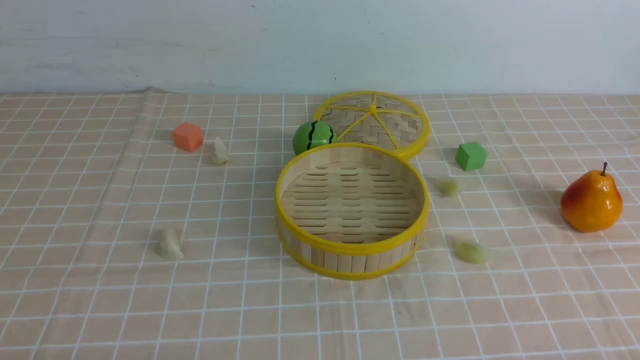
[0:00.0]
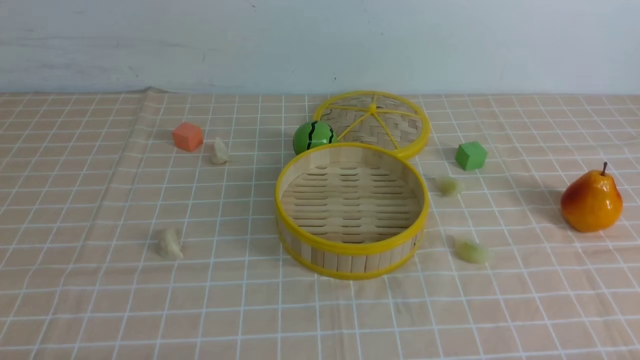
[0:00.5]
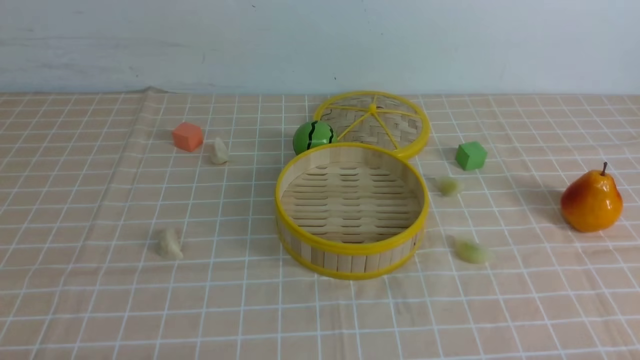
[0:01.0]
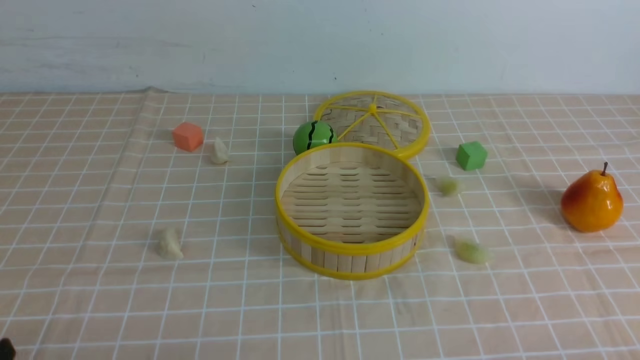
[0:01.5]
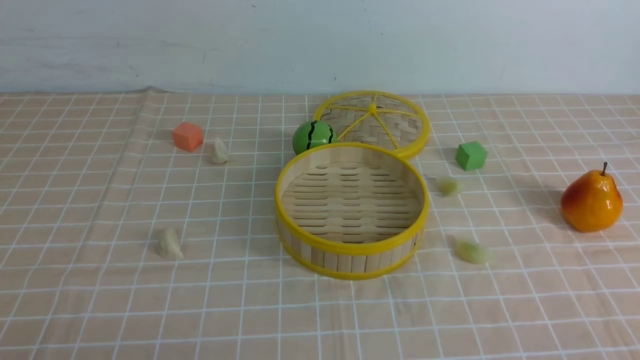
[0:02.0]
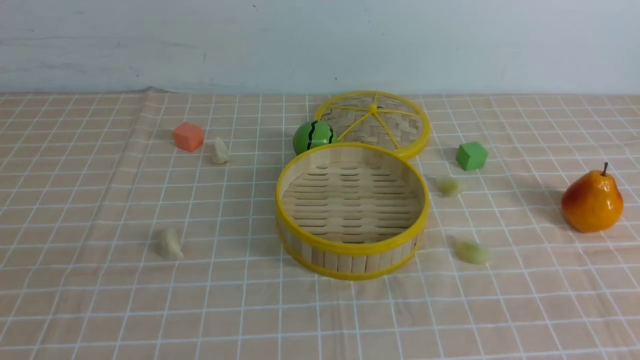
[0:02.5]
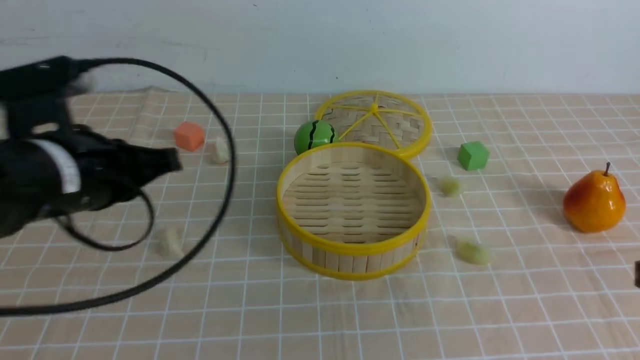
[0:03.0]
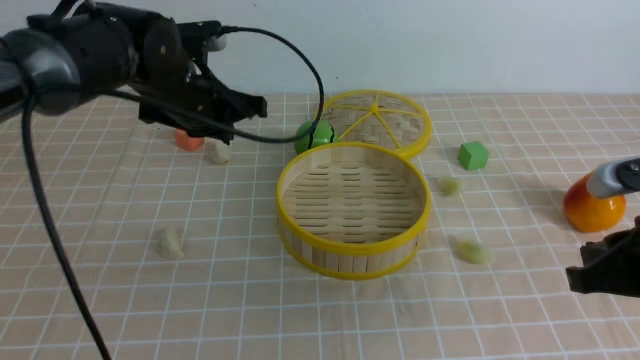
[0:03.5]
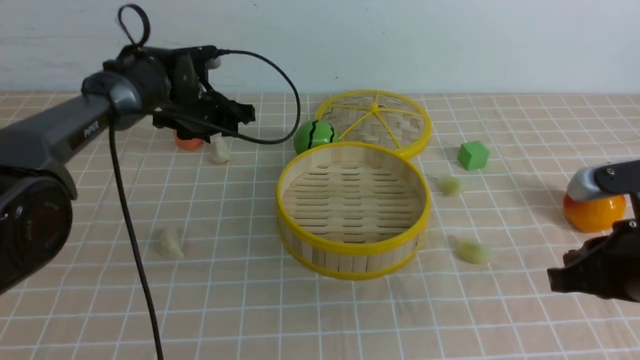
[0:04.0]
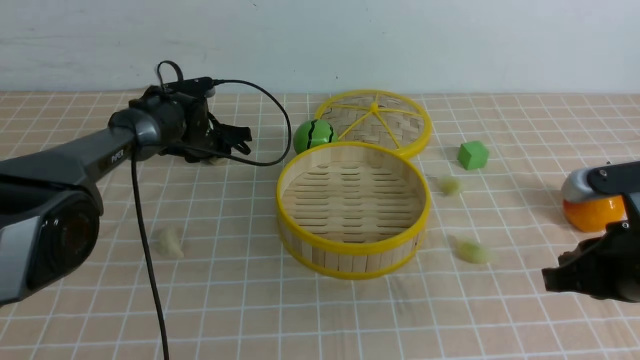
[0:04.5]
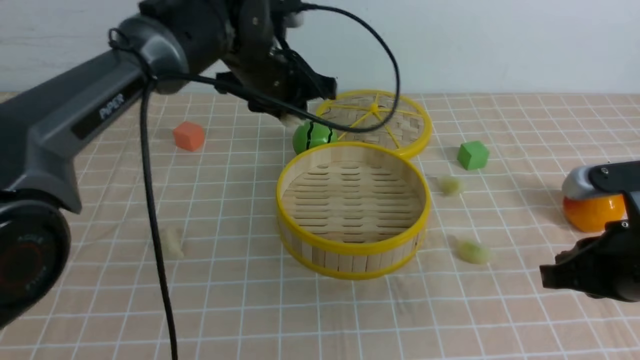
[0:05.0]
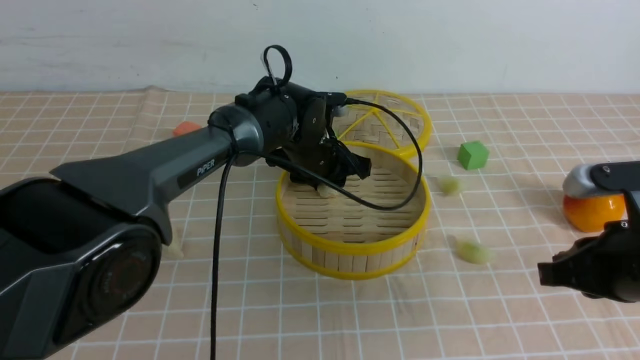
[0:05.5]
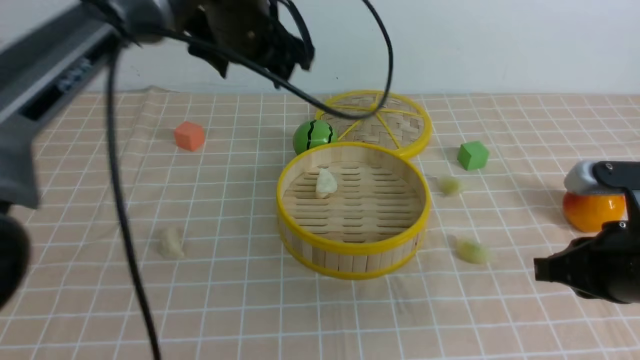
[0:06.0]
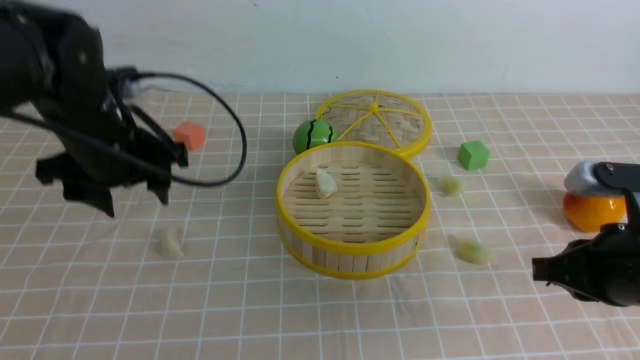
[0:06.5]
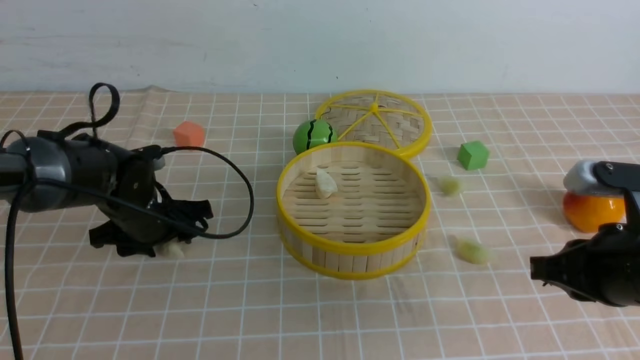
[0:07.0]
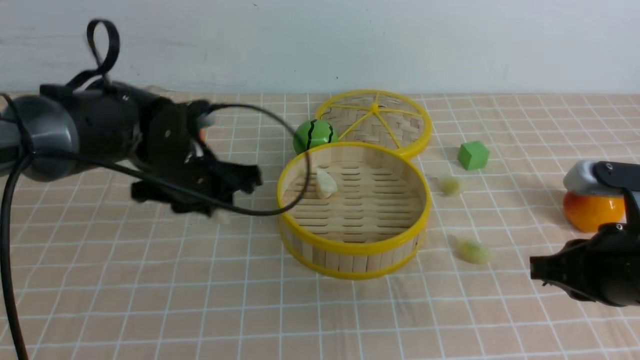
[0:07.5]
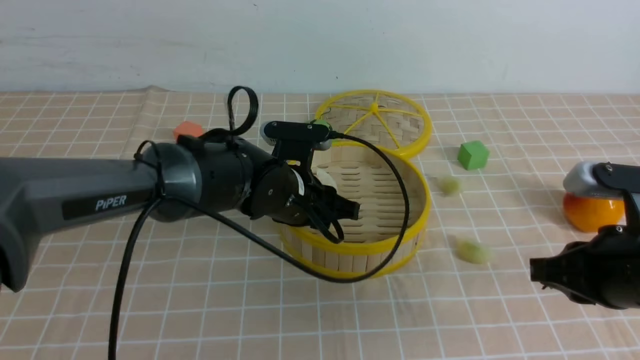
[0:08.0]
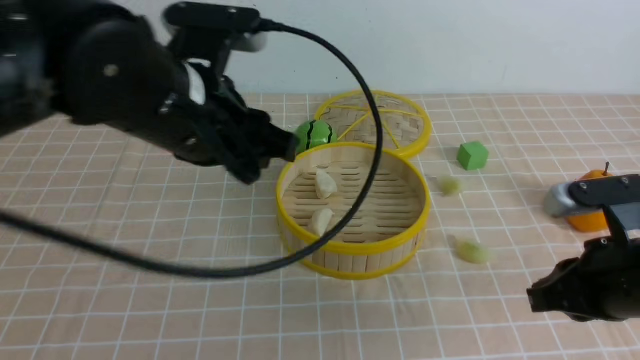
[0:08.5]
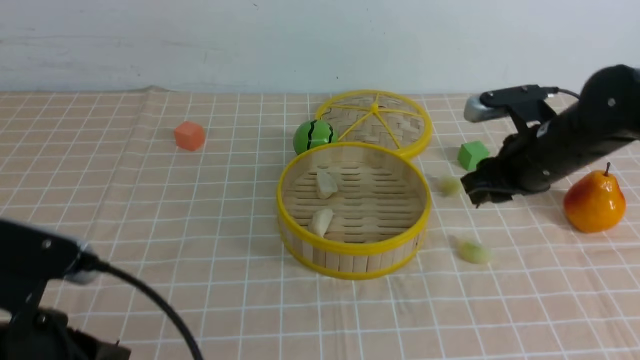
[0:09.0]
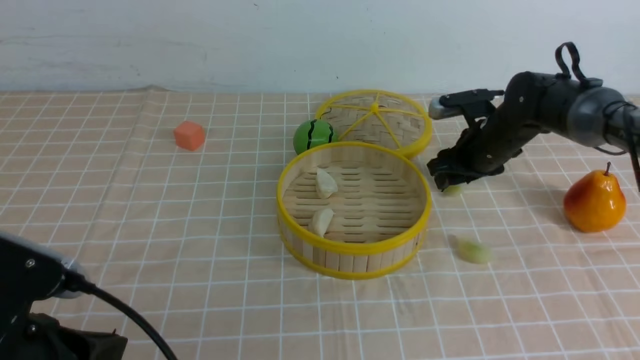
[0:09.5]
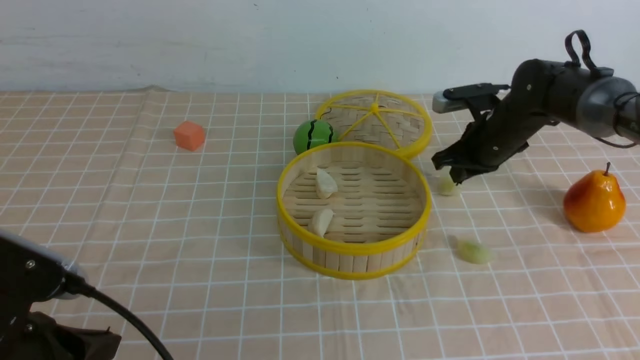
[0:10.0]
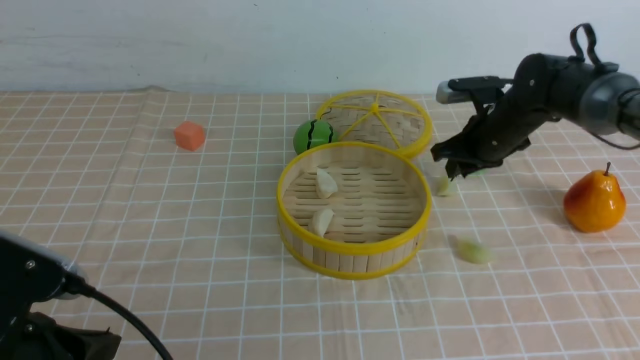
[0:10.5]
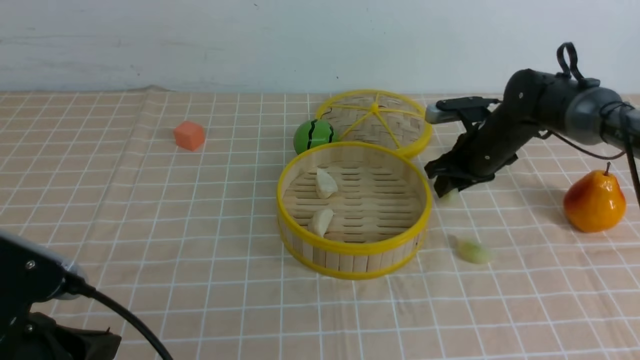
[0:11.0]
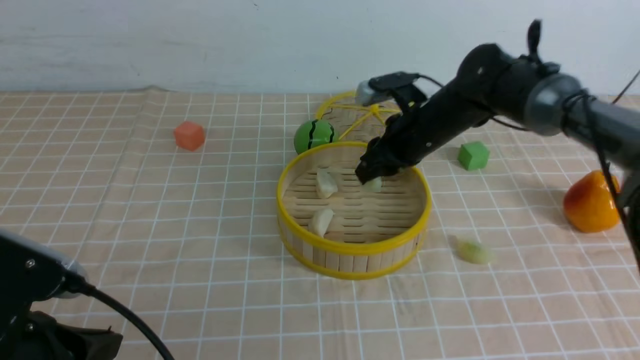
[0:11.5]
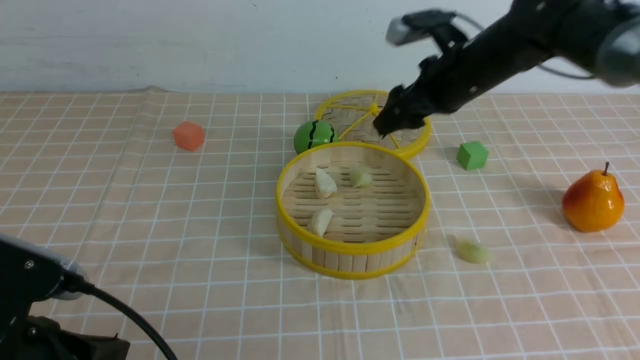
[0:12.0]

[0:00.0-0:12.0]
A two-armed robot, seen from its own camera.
Task of the whole recording: put the dumplings into the steamer on the table with the brown tablecloth.
Step, 0:00.0 to 0:04.0: use the left arm to grab a dumpling.
Step, 0:04.5 to 0:05.5: use the left arm to put the dumpling into the steamer.
Step, 0:06.0 to 0:07.0: use the left arm to grab a dumpling.
Step, 0:07.5 to 0:08.0: use the left arm to put the dumpling into the steamer.
Step, 0:08.5 to 0:10.5: use the right arm to grab a dumpling.
Step, 0:11.0 to 0:11.5: use the right arm to put the dumpling into the steamer.
0:02.0 to 0:04.0: The right gripper shifts some 15 cm forward, and closes its fingers. Meanwhile the left gripper is displaced forward by about 50 cm, and closes and opens again.
0:04.0 to 0:06.0: The left gripper goes up and down, roughly 20 cm each way, reversing 2 times.
0:06.0 to 0:08.0: The left gripper travels downward by roughly 15 cm, and closes its fingers.
0:08.0 to 0:10.0: The right gripper heads forward, covering about 25 cm, and opens, then closes once more. Meanwhile the left gripper heads backward and to the left, covering some 30 cm, and closes.
0:10.0 to 0:12.0: The right gripper travels upward and to the left by about 10 cm, and opens up.

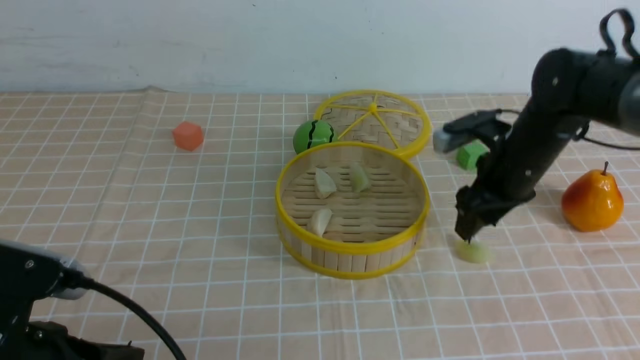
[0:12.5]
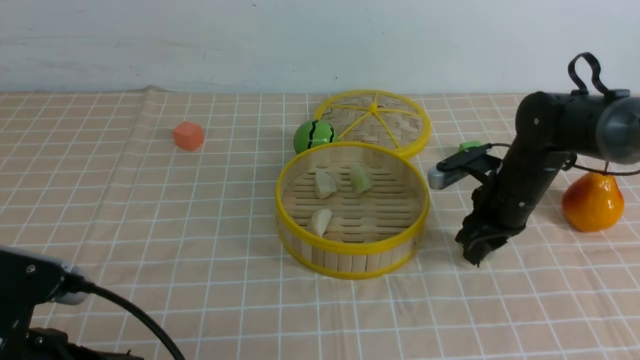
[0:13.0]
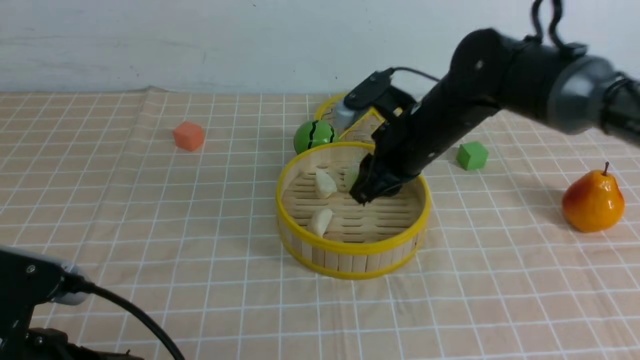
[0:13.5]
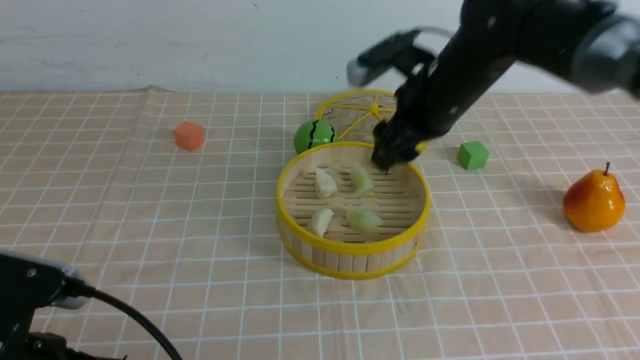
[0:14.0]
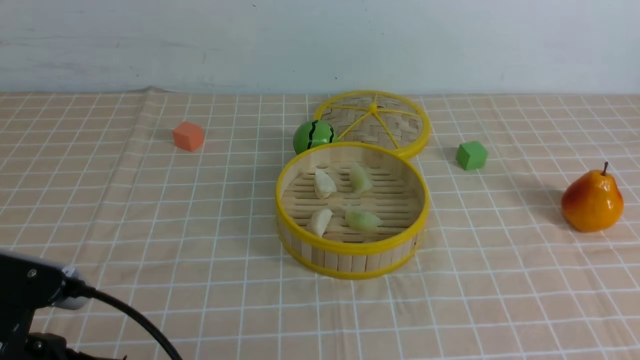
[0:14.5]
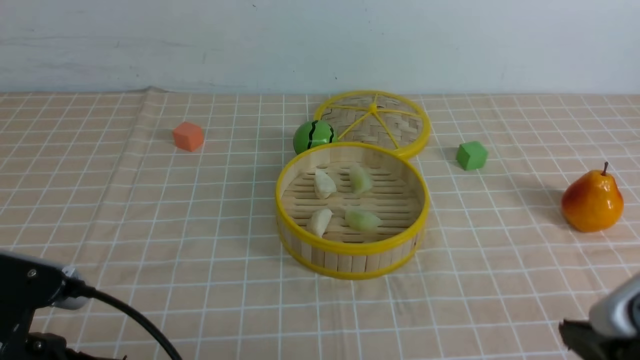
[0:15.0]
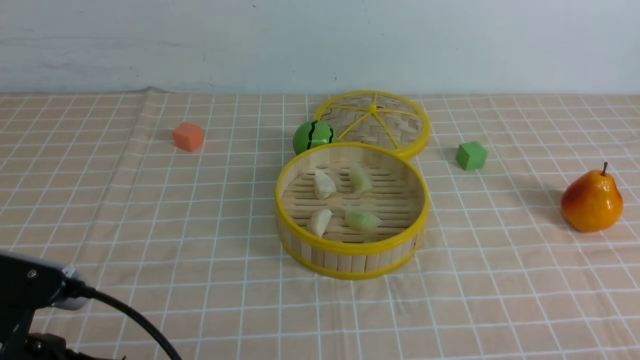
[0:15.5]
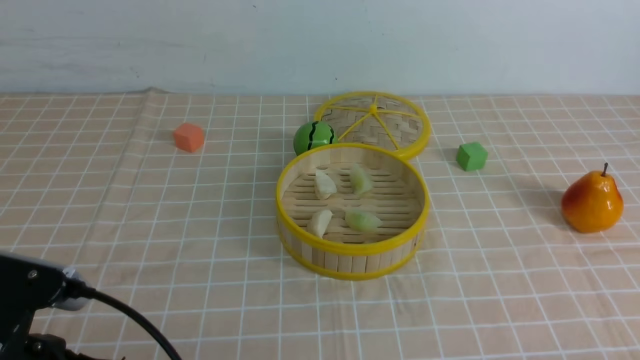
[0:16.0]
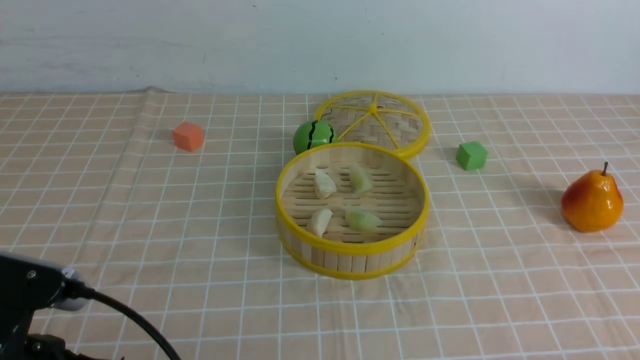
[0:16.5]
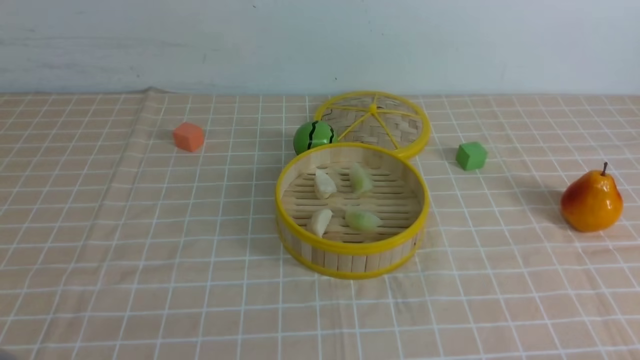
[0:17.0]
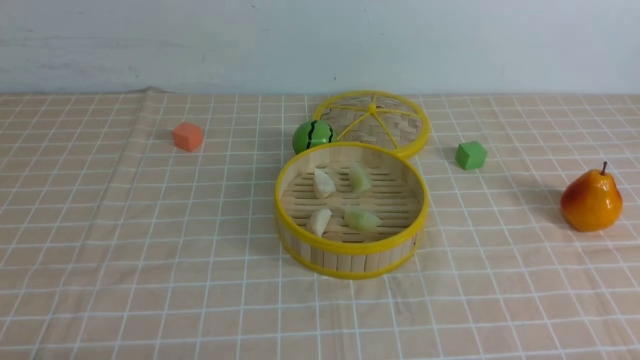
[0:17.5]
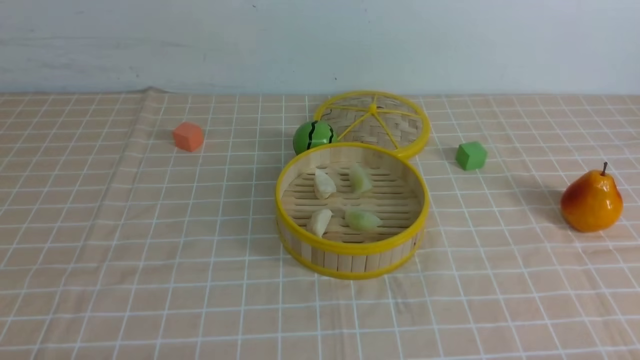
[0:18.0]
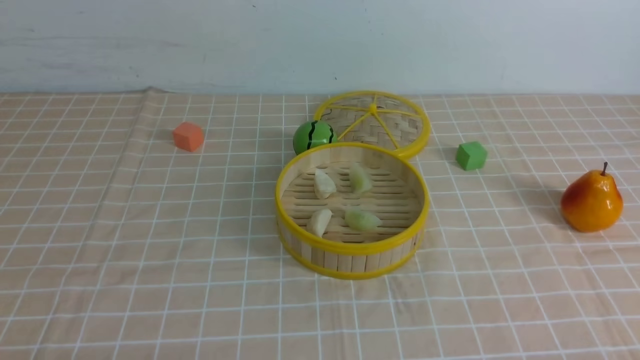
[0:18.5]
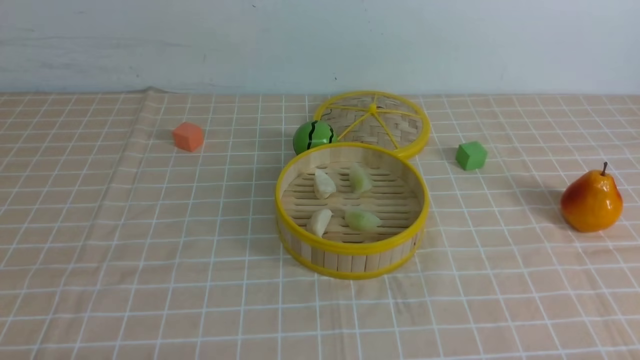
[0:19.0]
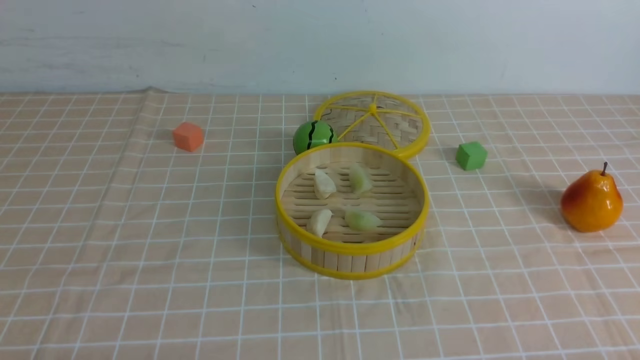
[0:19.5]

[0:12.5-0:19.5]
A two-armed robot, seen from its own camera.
Task of the whole recording: put the dumplings into the steamer on the table with the brown tablecloth.
Step, 0:13.0 to 0:14.0: use the right arm to put the dumpling into the steamer.
0:12.5 to 0:14.5: The right gripper moves upward and backward, roughly 35 cm, and closes.
0:16.0 to 0:17.5: The left gripper travels downward, to the left and backward by about 10 cm.
